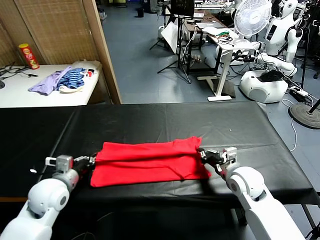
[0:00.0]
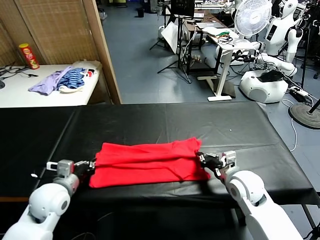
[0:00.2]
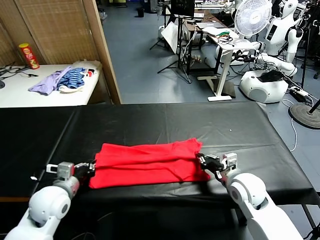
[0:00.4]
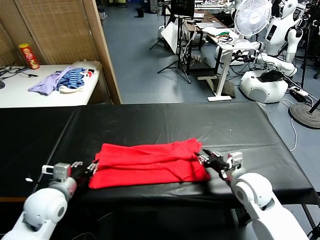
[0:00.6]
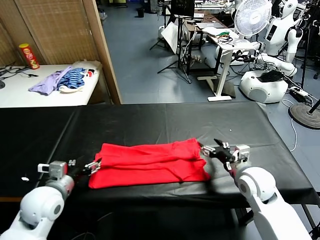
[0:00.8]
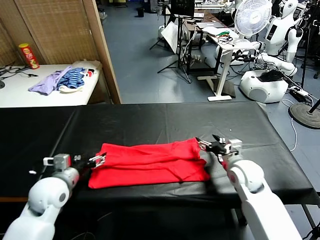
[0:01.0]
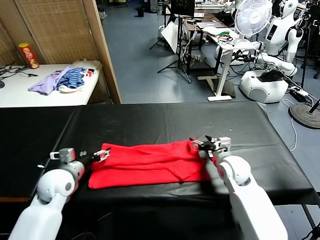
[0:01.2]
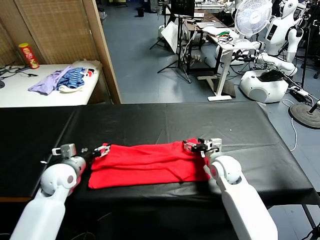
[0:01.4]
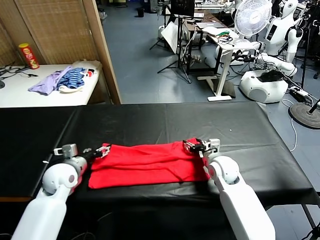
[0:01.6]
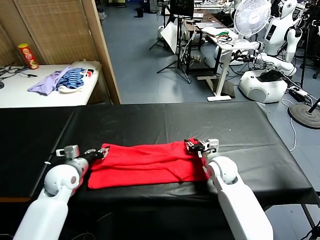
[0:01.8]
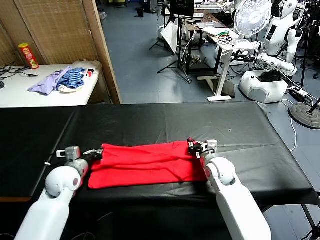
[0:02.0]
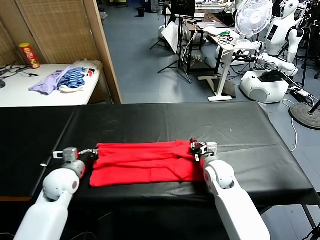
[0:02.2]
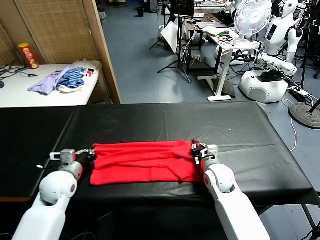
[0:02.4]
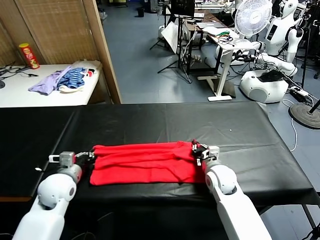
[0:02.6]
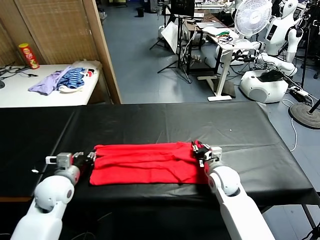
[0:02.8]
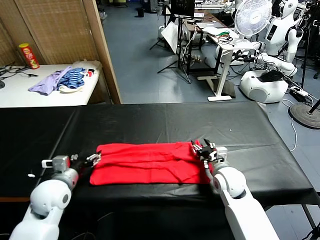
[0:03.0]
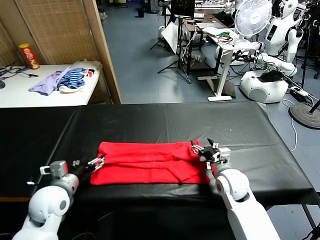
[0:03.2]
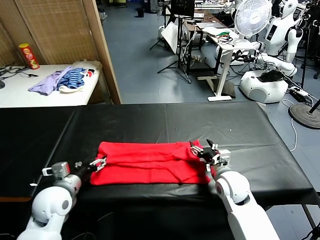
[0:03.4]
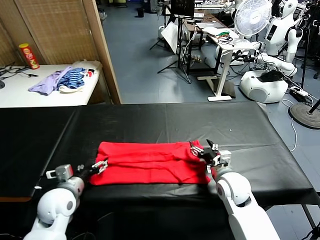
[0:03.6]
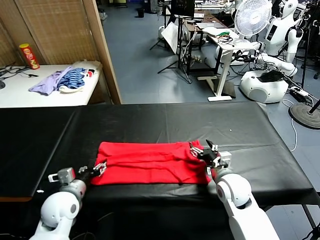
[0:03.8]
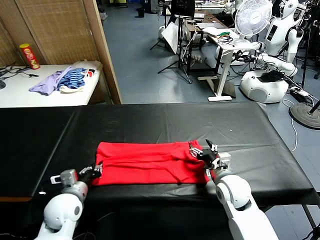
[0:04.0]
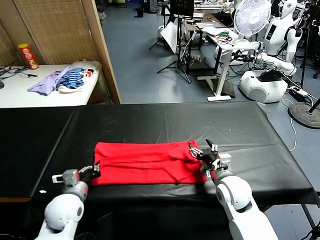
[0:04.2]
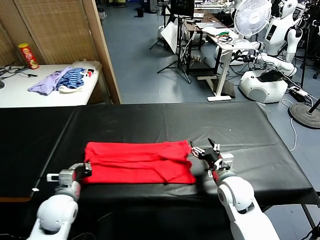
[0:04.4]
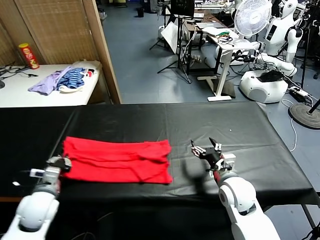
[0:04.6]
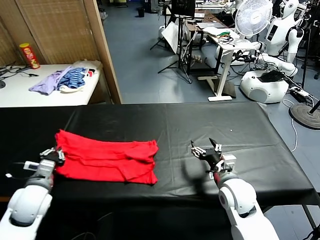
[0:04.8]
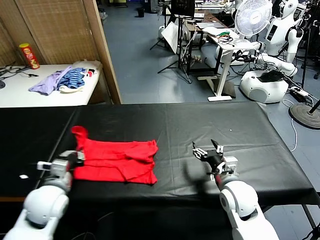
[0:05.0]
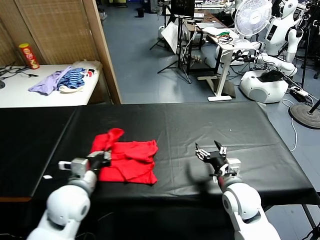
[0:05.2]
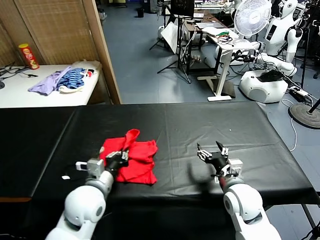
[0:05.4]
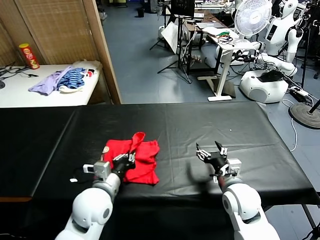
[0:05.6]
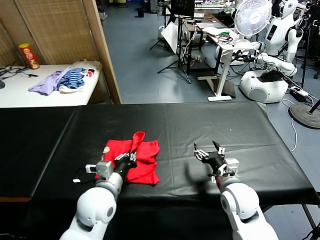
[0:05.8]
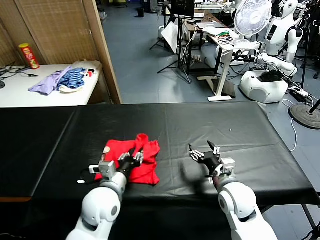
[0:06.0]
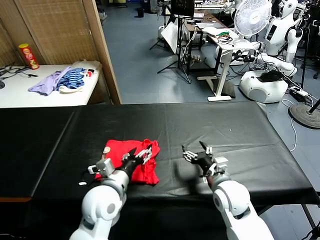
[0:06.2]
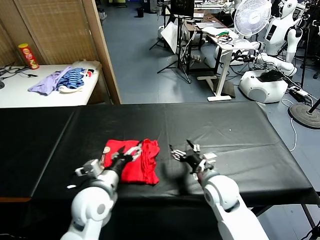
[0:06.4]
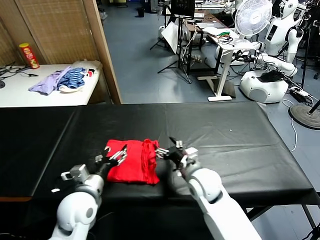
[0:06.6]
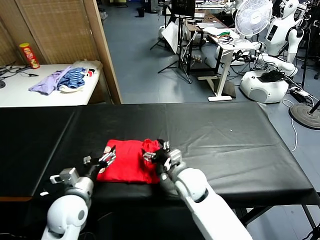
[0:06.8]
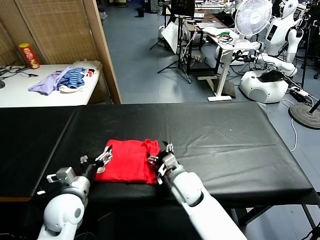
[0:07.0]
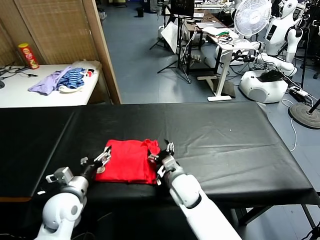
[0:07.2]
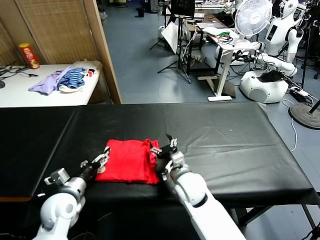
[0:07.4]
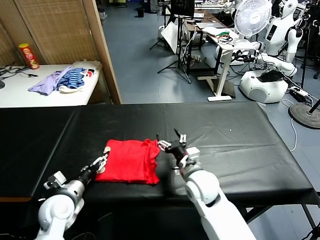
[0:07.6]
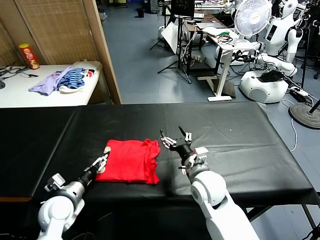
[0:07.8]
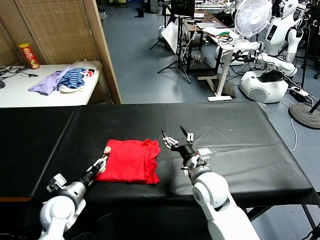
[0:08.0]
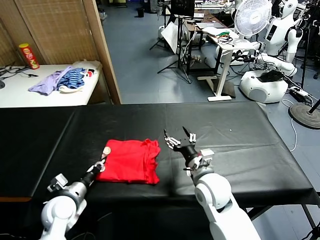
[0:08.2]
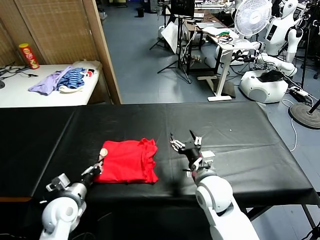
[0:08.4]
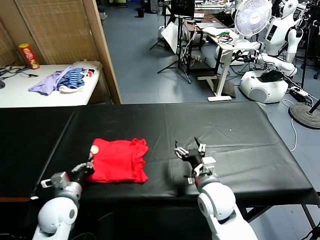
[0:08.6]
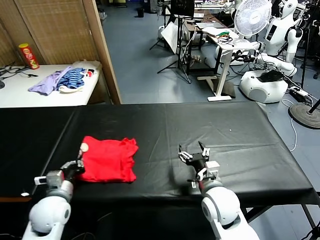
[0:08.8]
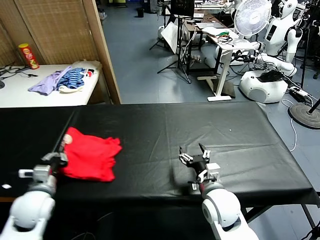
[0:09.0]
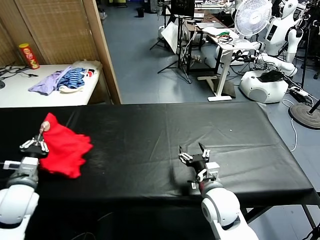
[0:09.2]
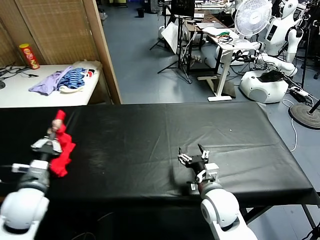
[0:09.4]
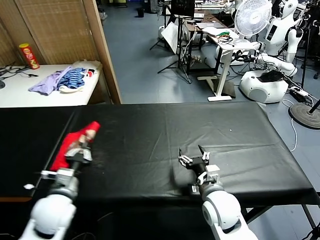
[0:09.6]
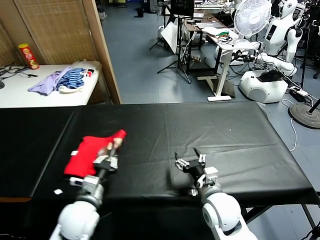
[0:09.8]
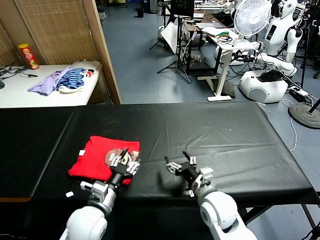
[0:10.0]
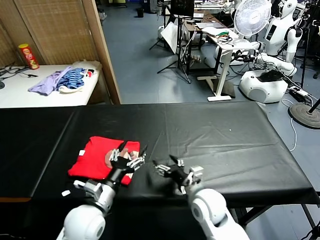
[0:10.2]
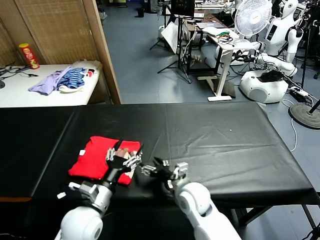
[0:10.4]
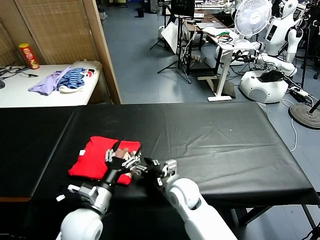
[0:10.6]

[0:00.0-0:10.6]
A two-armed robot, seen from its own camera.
Task of the whole recording: fold and organize the clothes.
Step, 0:01.0 to 0:04.4: use the left gripper to clamp the left edge of the fabric.
Step, 0:04.6 to 0:06.0: use the left gripper to drag the left edge of the fabric to the left and folds it over the right edge.
Step, 0:06.2 to 0:10.0: Flip the folded clothes over with left gripper.
0:00.0 to 0:01.6: The two grippers go some 5 cm forward. The left gripper opens its fingers. The right gripper opens its fingers.
0:01.6 to 0:03.0: The right gripper ends up approximately 5 cm from where it was, and closes, then reopens. Meanwhile the left gripper moves backward, about 5 cm, and closes, then opens again.
0:03.0 to 0:04.6: The left gripper closes up. The right gripper shifts by some 5 cm.
0:04.6 to 0:06.0: The left gripper heads to the right, covering some 20 cm.
0:06.0 to 0:07.6: The right gripper goes approximately 10 cm to the left, while the left gripper is displaced to the left by some 15 cm, and opens.
0:07.6 to 0:09.0: The left gripper ends up approximately 5 cm from where it was, and closes its fingers. The right gripper travels backward by approximately 5 cm.
0:09.0 to 0:10.6: The right gripper is displaced to the left, forward and downward by roughly 10 cm. Meanwhile the left gripper is displaced to the right by roughly 15 cm, and opens.

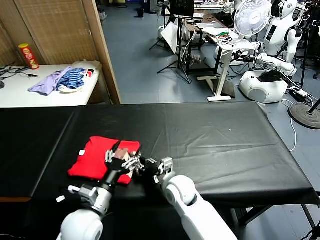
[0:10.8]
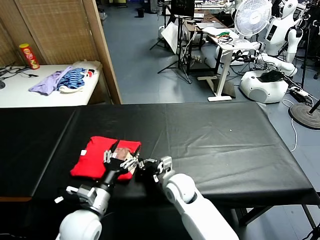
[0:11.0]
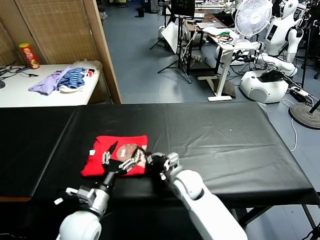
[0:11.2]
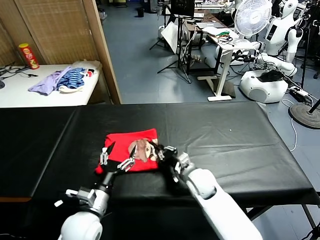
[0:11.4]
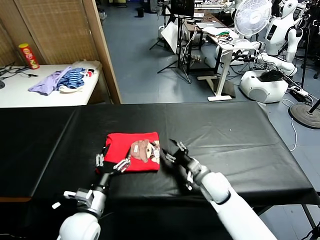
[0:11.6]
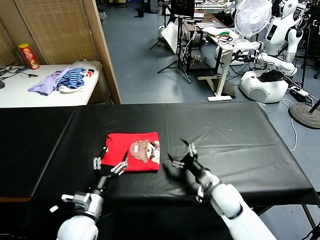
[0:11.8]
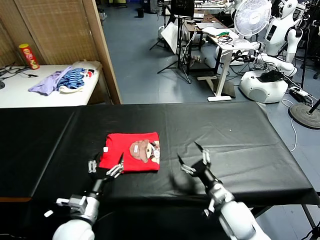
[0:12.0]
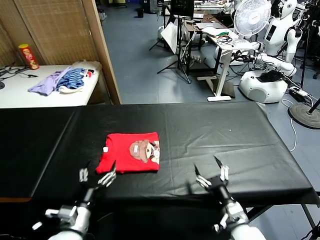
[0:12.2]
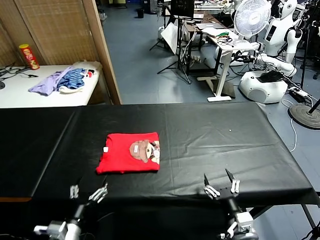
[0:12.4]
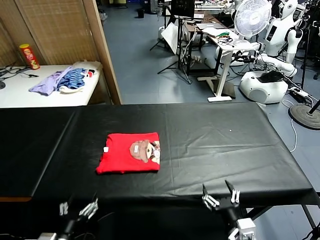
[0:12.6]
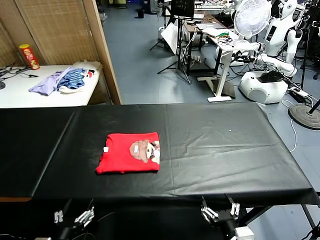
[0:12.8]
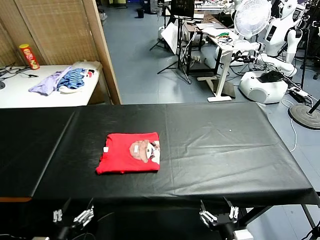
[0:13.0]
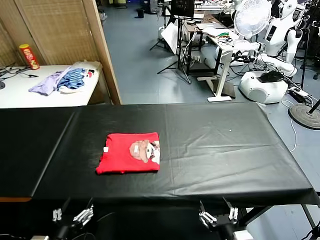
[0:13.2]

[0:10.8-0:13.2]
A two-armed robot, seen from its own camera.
Task of the whole recording: fold and organize the clothes.
Step, 0:10.8 to 0:11.6: Drag the clothes to the center of the table.
0:10.8 to 0:12.0: The right gripper heads to the right and backward, covering some 20 cm, and opens up.
0:12.0 to 0:13.2: The left gripper moves backward, roughly 15 cm. The right gripper is displaced backward and upward by roughly 20 cm.
